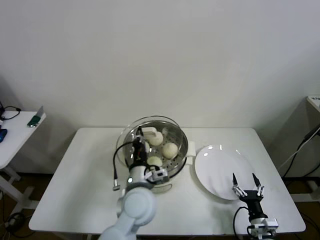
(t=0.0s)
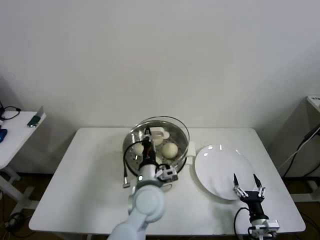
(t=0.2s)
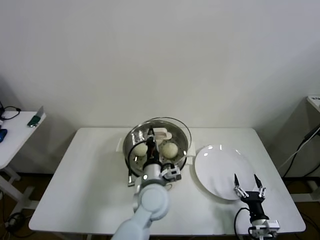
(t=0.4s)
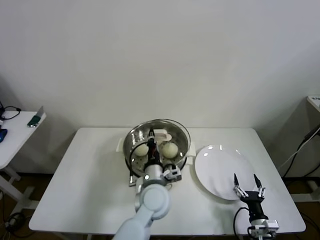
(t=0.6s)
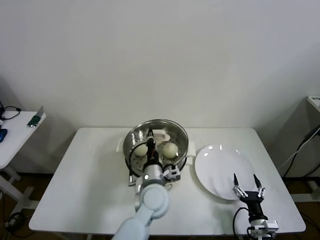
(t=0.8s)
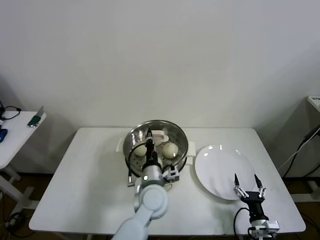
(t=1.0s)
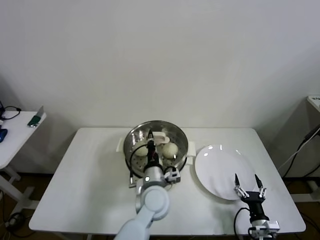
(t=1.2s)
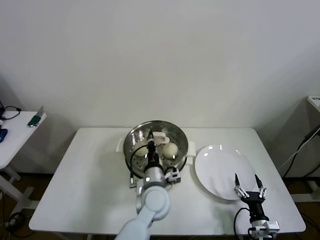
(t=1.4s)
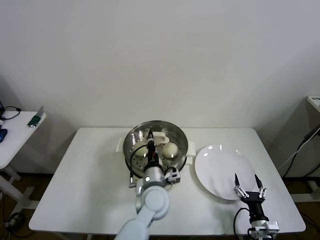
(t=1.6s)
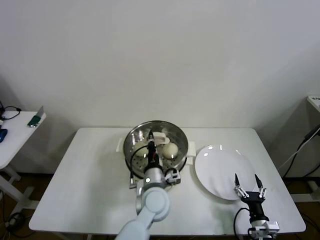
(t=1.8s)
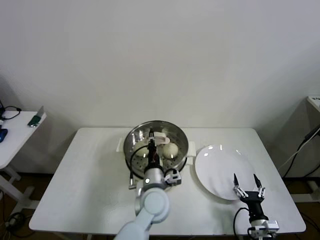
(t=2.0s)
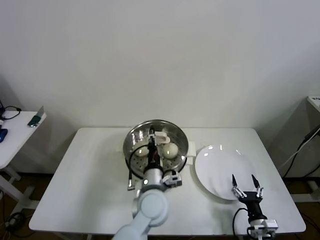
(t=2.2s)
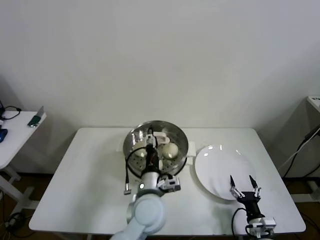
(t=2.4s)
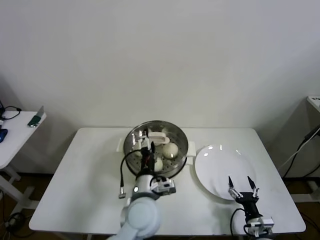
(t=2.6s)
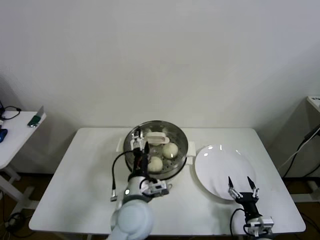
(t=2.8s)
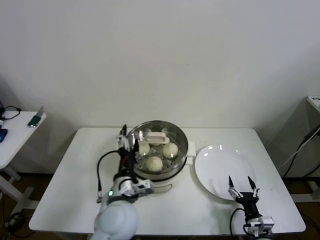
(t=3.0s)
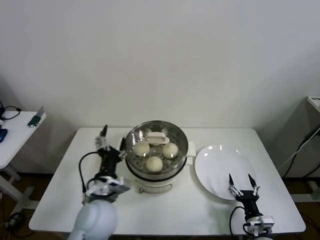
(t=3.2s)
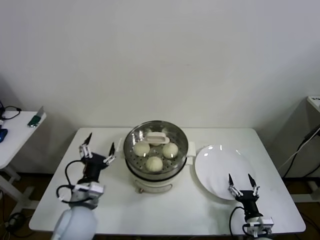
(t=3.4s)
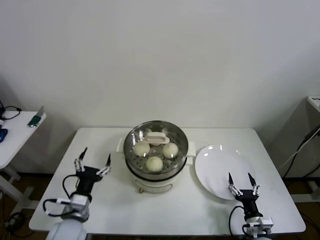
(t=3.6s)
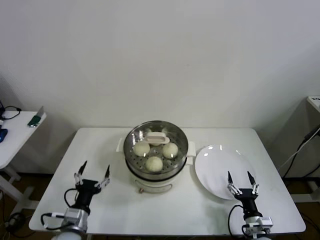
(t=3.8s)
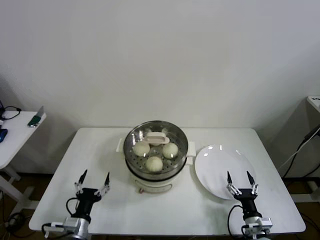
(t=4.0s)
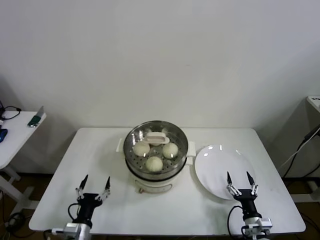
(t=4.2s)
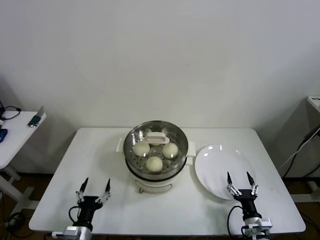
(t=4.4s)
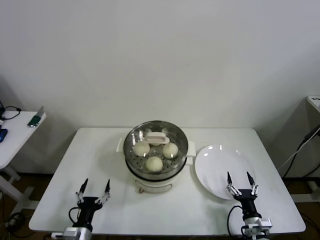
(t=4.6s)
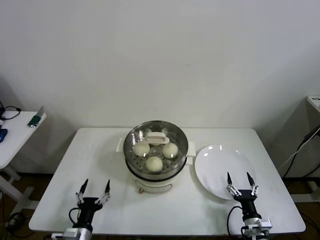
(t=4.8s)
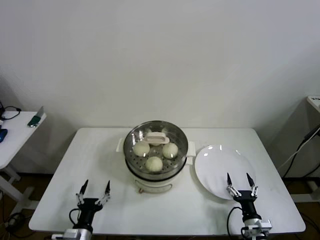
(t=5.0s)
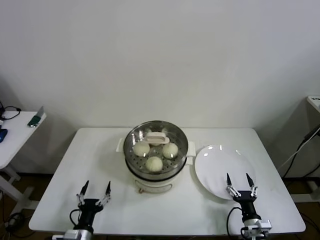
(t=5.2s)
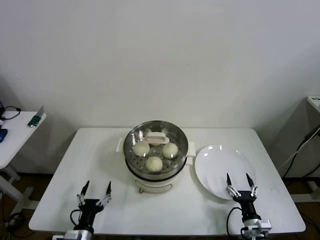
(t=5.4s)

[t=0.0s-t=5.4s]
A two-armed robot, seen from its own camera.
Step, t=0.0s to t=2.2s: Place the pot lid on the steamer with left gripper.
t=0.0s to t=1.4s: The left gripper shifts roughly 10 cm to the right and downward.
t=1.4s to t=2.8s: The left gripper goes approximately 5 cm backward, and opens its fingers.
t=2.8s to t=4.0s: The left gripper goes some 25 cm to the left and downward.
t=4.0s to t=5.4s: The left gripper shifts by some 5 cm.
